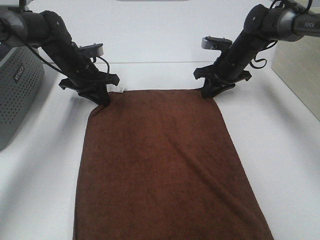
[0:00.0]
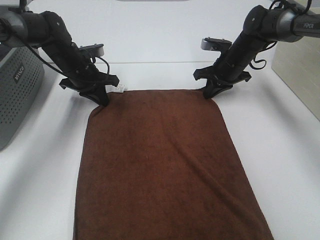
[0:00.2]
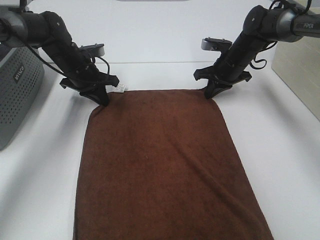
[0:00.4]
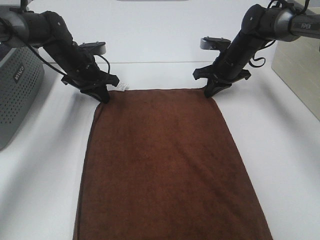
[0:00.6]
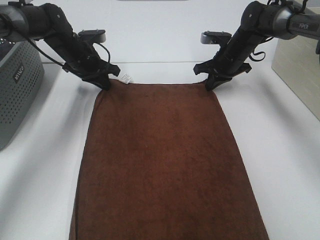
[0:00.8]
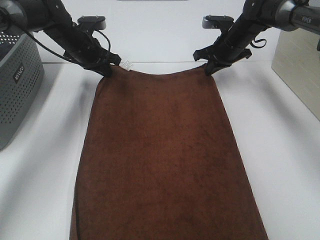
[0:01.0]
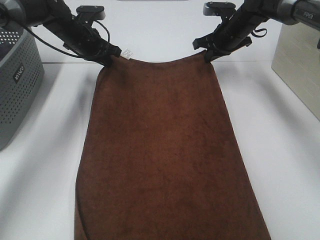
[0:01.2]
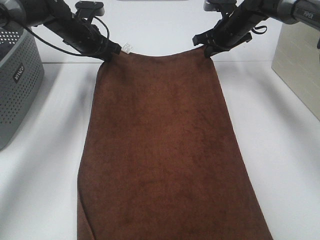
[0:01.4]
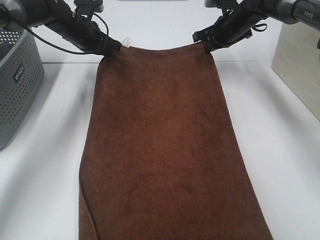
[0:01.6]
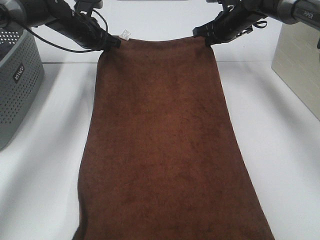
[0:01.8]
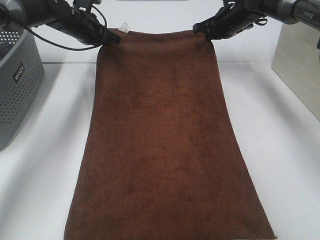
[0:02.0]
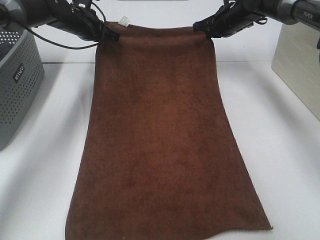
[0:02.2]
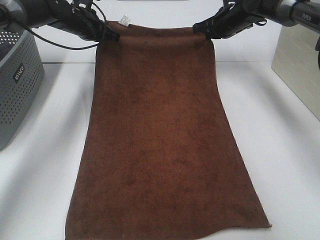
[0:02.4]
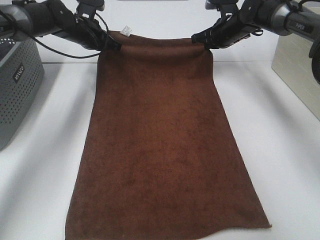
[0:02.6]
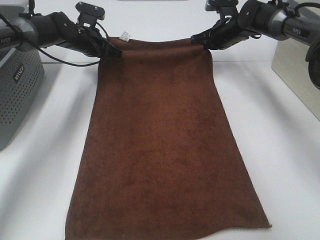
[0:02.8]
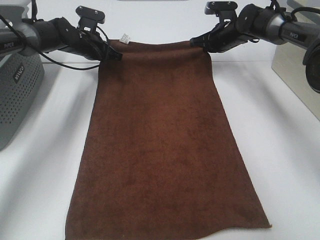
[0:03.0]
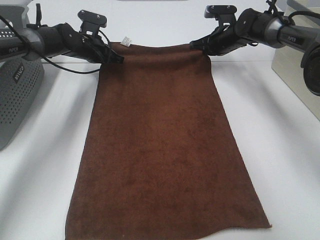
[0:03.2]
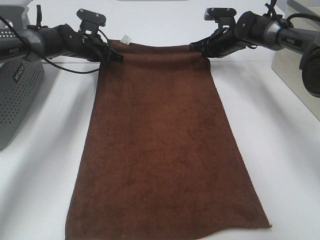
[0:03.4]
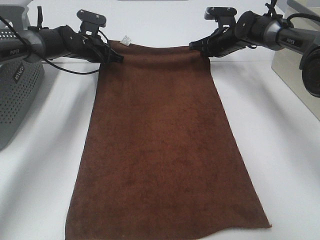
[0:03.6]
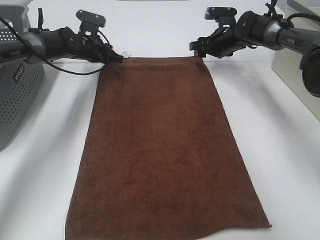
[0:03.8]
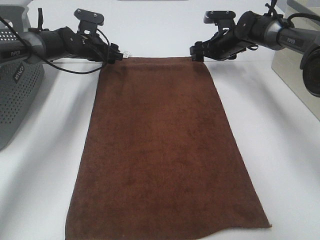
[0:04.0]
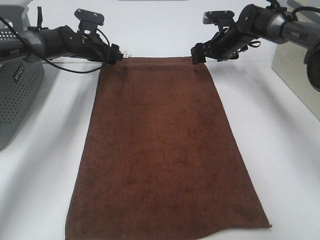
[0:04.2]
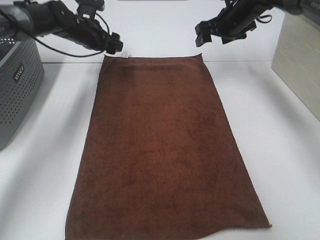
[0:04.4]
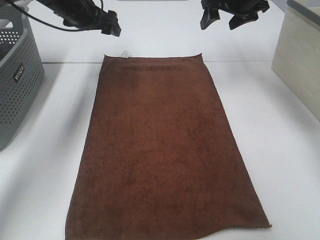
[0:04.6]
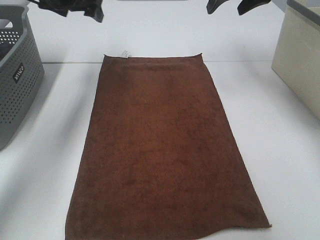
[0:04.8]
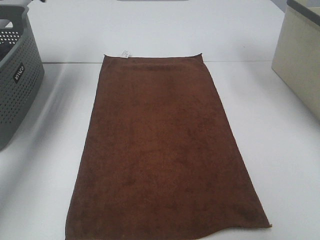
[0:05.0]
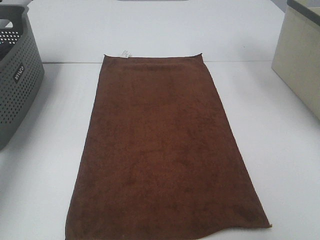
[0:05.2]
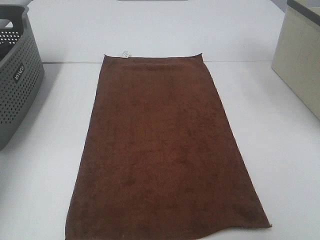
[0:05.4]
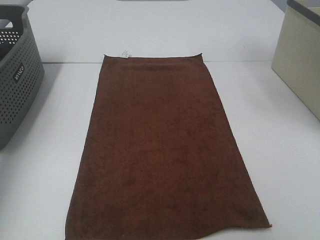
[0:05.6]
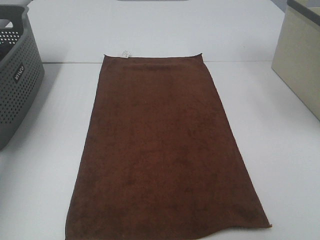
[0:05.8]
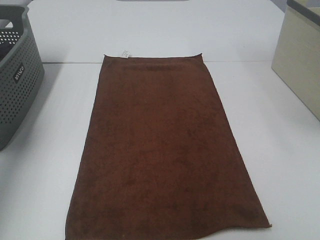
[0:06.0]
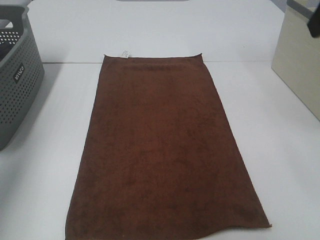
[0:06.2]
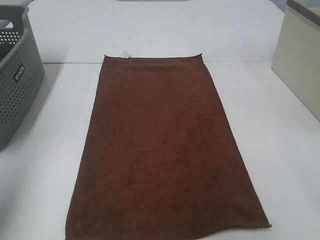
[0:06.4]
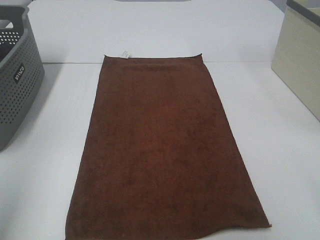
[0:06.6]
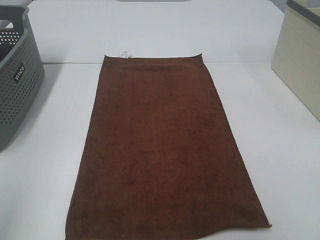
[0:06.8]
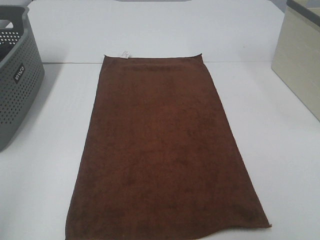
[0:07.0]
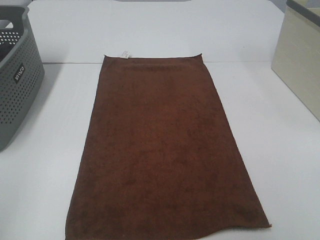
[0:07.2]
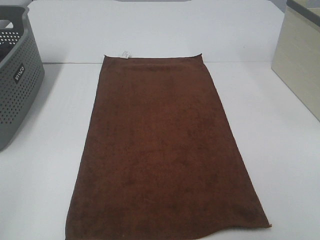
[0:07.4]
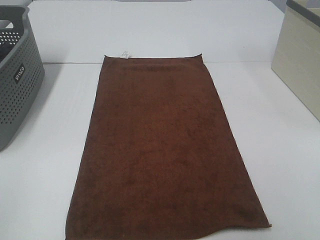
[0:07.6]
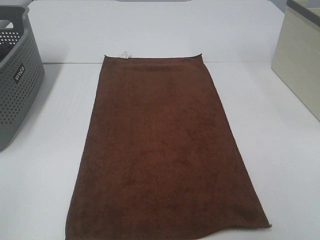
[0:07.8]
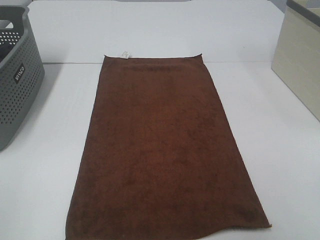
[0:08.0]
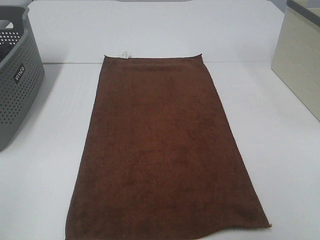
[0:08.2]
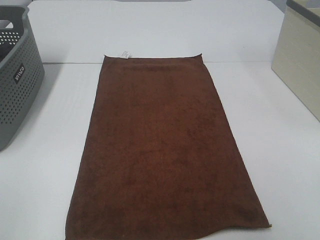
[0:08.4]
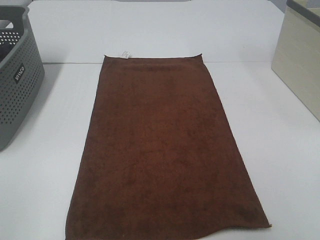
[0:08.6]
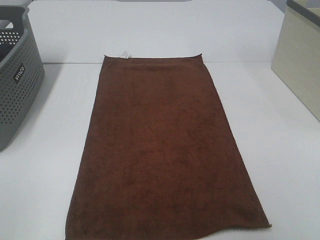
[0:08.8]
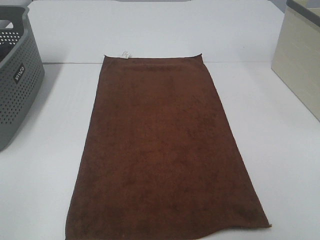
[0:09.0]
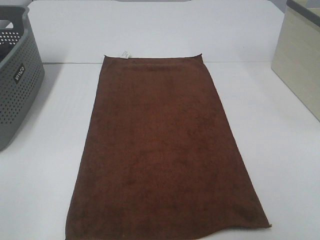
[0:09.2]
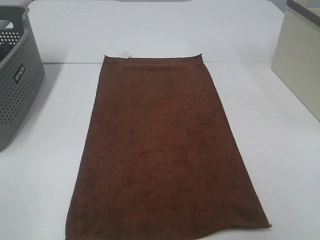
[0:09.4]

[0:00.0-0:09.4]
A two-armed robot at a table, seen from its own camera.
Task of the whole recording: Remove the towel and place it.
0:00.0 to 0:01.6: The two grippers go approximately 10 cm upward and forward.
0:01.6 to 0:03.2: The left gripper shifts some 5 cm downward. Meanwhile the right gripper moves some 5 cm.
0:03.2 to 0:04.8: The right gripper moves upward and backward, approximately 20 cm, and opens its fingers. Meanwhile the left gripper is displaced upward by about 15 cm, and opens.
0:04.8 to 0:06.2: The right gripper heads backward, covering some 30 cm. Meanwhile the left gripper heads backward and to the left, covering roughly 35 cm.
0:06.2 to 0:07.8: The right gripper is displaced backward and downward by roughly 25 cm; the left gripper shifts approximately 25 cm backward.

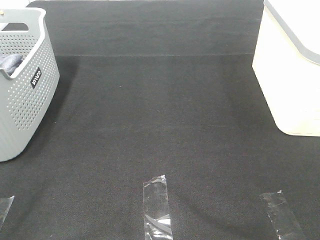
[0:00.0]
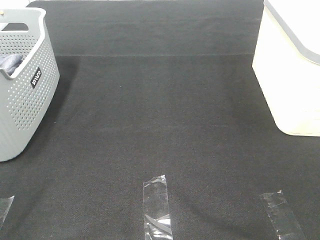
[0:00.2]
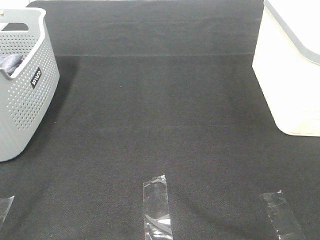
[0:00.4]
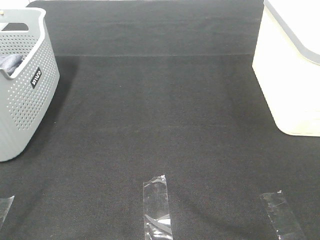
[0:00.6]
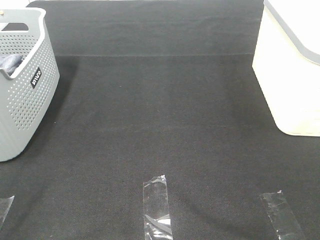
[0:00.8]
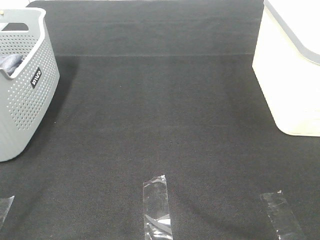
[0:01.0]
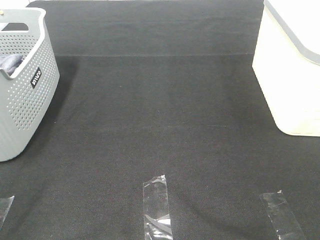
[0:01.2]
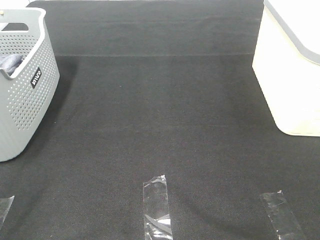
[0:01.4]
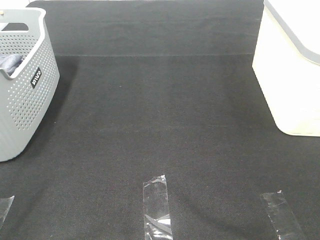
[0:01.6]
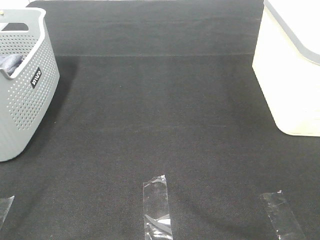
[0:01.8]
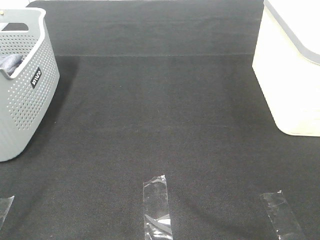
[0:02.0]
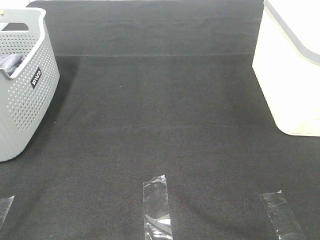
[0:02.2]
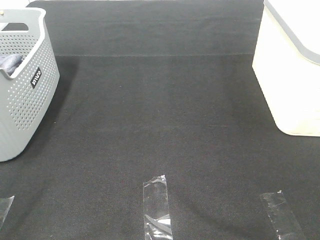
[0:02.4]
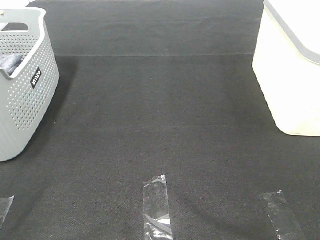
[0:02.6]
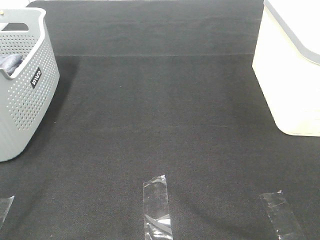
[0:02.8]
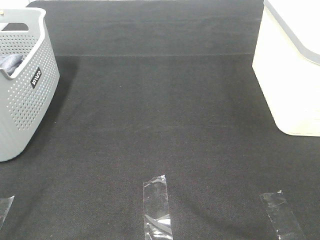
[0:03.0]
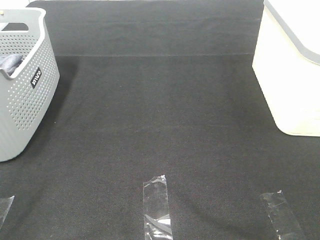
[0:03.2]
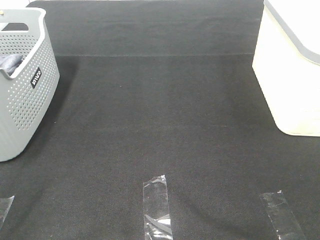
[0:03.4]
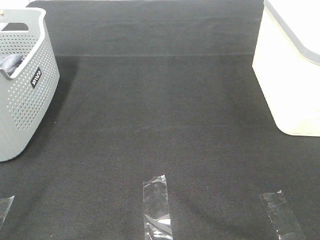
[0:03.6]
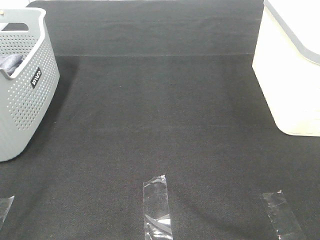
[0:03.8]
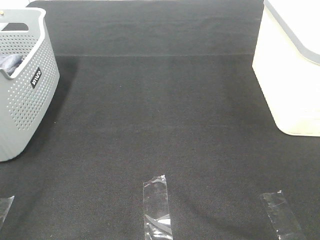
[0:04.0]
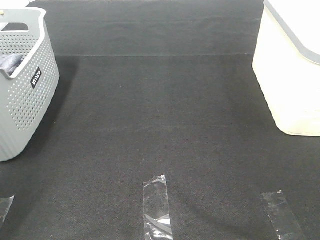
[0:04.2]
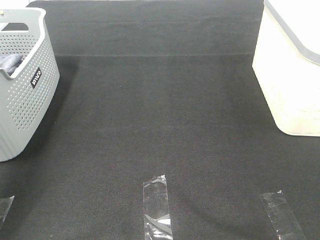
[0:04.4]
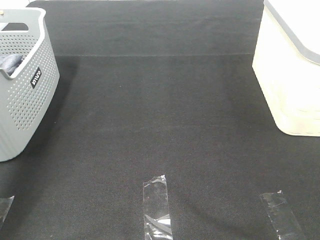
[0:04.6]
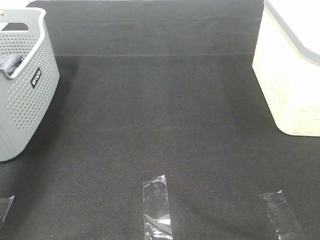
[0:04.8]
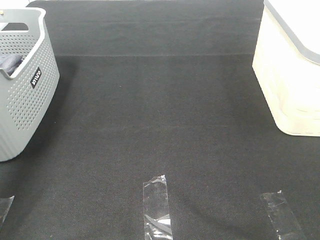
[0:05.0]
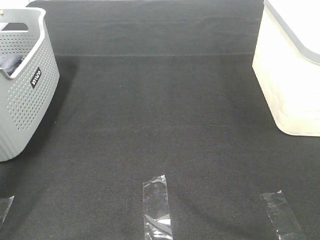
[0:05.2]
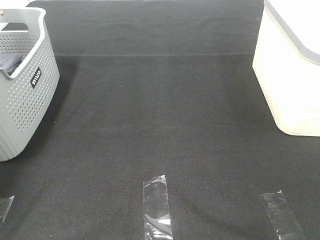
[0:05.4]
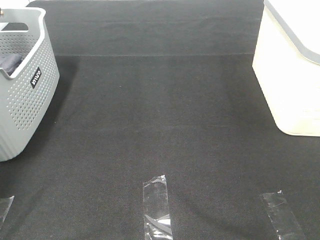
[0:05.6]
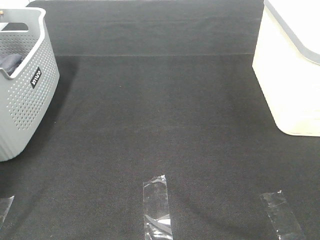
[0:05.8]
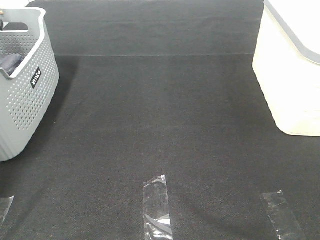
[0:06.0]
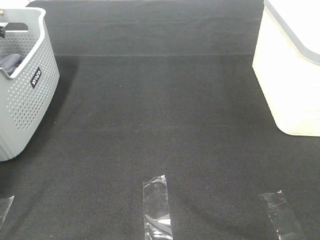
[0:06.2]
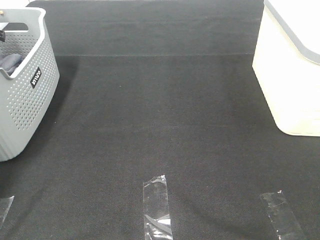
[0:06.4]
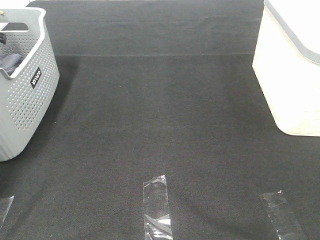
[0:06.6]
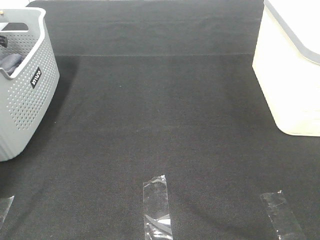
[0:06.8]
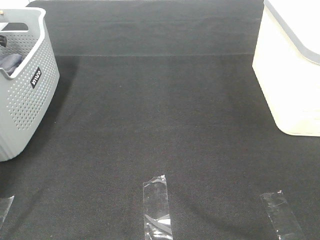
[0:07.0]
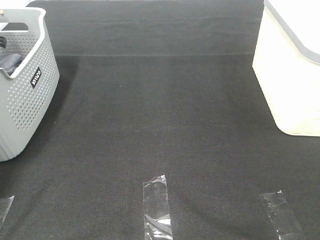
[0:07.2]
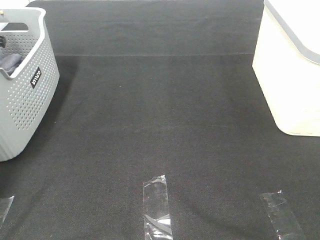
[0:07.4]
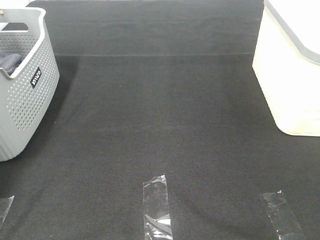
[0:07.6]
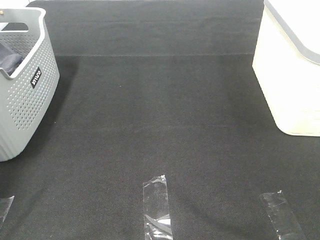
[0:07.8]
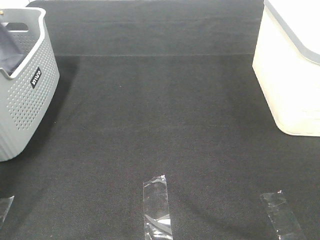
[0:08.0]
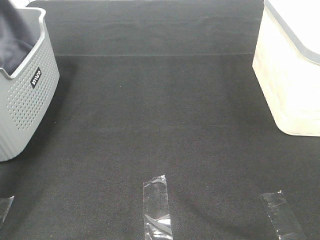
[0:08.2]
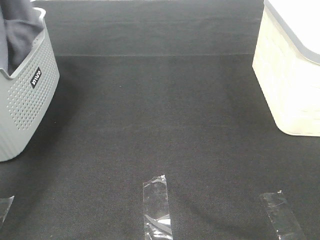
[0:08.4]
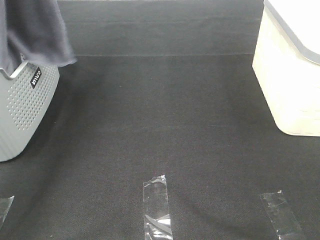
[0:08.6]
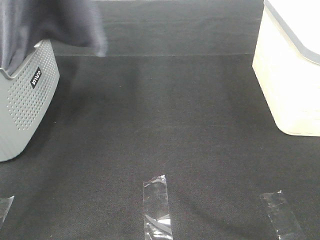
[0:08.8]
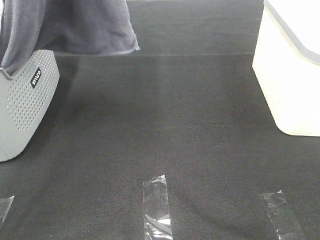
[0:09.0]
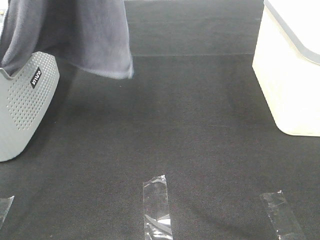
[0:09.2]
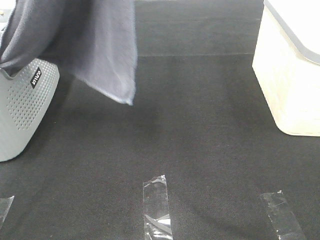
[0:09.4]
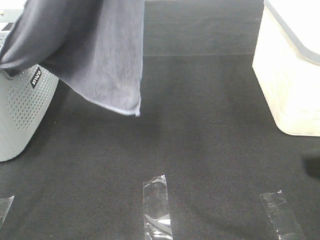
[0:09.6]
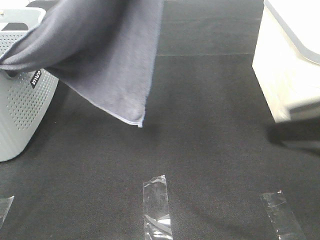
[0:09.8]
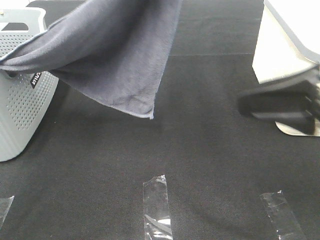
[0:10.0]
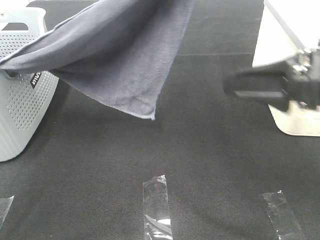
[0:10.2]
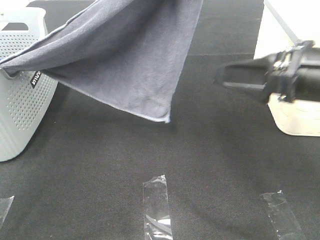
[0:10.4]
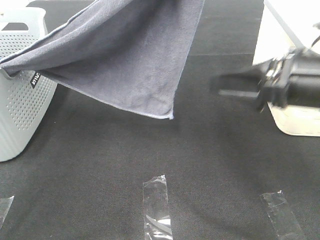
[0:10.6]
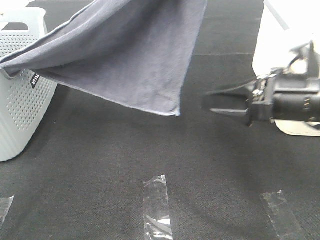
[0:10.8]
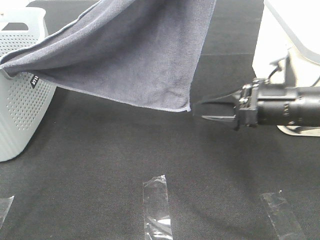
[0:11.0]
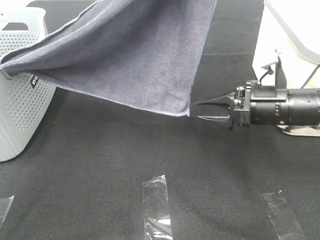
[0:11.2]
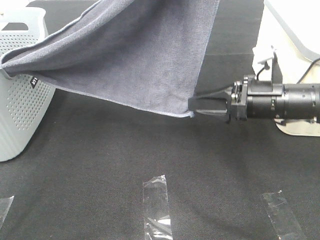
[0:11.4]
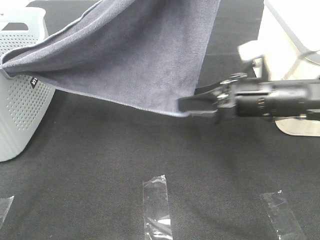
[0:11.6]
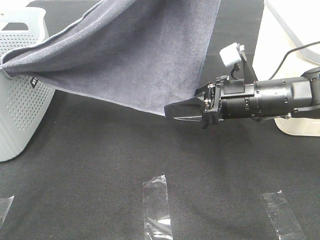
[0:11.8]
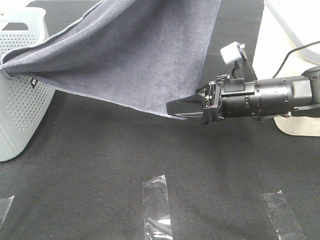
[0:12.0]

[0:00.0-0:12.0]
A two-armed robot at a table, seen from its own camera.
Task of the whole recording: Remove the towel and place it.
Step, 0:08.4 to 0:12.0: Right hand: grab a corner of the grey towel and straighten it.
0:00.0 to 0:03.0: Neither gripper changes place.
0:03.0 to 0:04.4: The left gripper heads forward and upward, covering roughly 25 cm.
0:04.4 to 0:06.0: The left gripper shifts roughly 35 cm forward and downward.
0:07.6 to 0:09.0: The left gripper moves upward, to the right and backward, about 40 cm.
0:09.0 to 0:10.4: The left gripper goes some 15 cm to the right and downward. The right gripper shifts some 20 cm forward.
0:10.4 to 0:12.0: The right gripper heads downward, forward and to the left, covering about 15 cm.

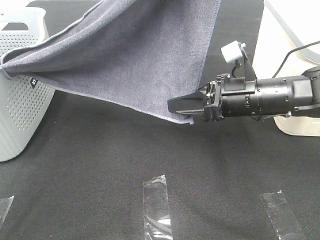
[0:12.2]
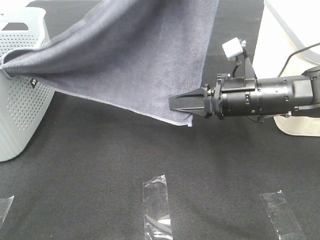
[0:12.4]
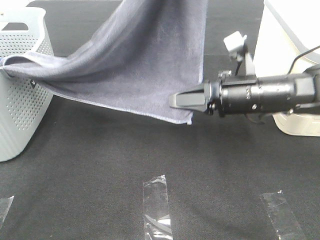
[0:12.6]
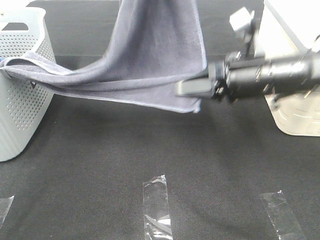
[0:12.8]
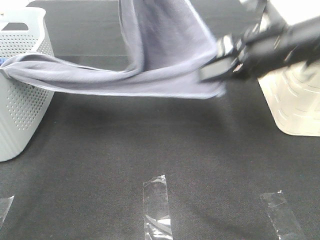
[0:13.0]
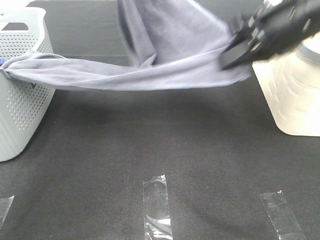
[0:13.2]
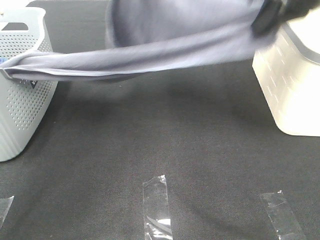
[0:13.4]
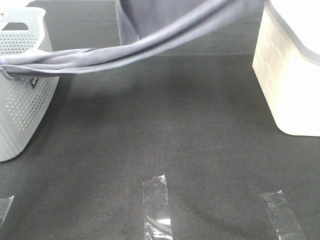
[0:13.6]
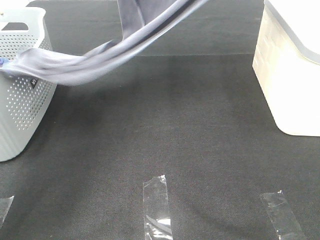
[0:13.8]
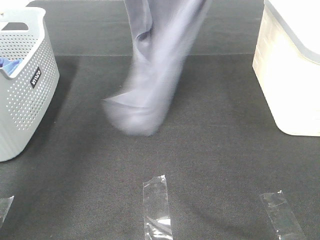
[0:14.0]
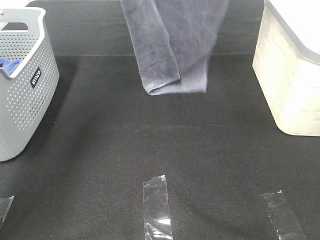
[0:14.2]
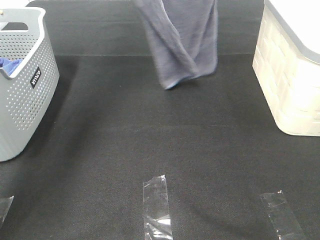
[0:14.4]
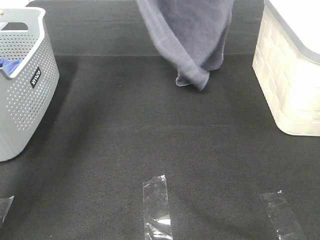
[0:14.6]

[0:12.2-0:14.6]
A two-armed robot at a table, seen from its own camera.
Task of the whole recording: Remove the towel and place it.
0:12.2 to 0:13.4: The right gripper goes about 20 cm upward; the left gripper shifts some 15 cm forward, to the left and downward.
0:13.4 to 0:14.6: The left gripper travels to the left and forward by roughly 10 cm; the right gripper moves upward and forward, roughly 20 cm.
